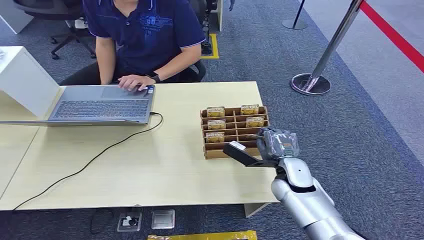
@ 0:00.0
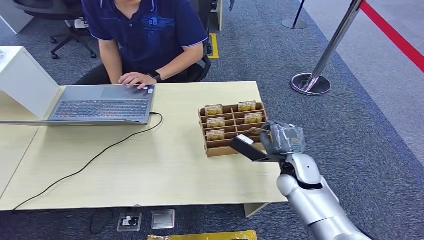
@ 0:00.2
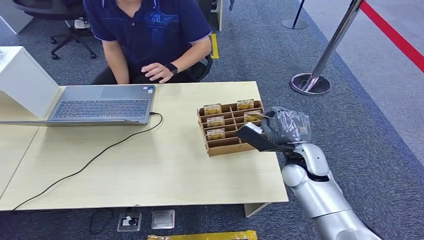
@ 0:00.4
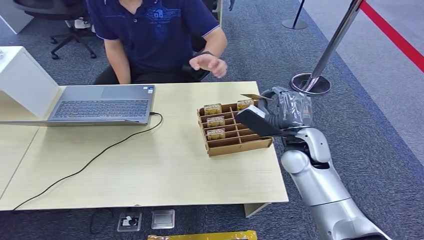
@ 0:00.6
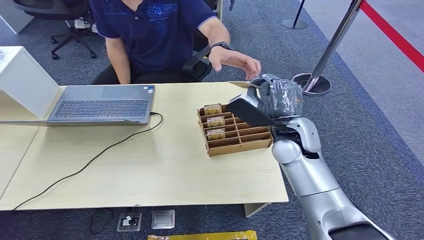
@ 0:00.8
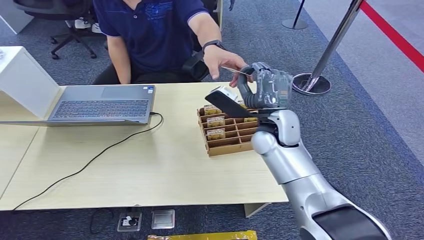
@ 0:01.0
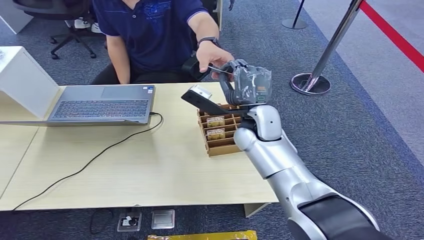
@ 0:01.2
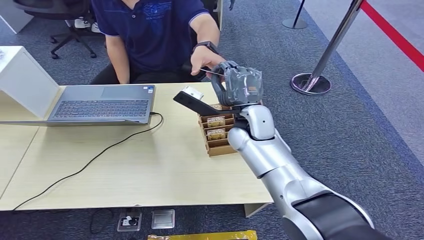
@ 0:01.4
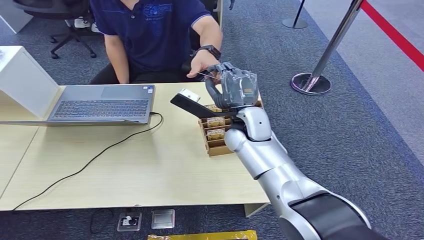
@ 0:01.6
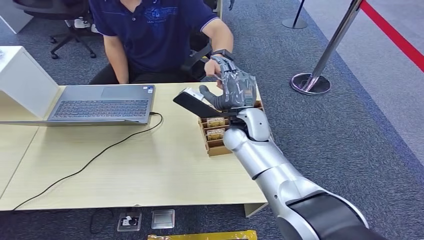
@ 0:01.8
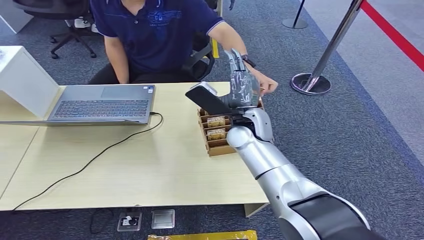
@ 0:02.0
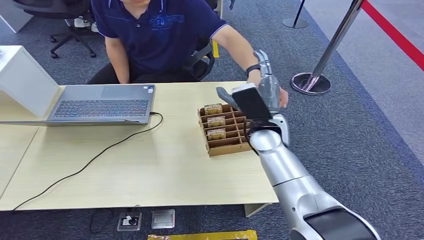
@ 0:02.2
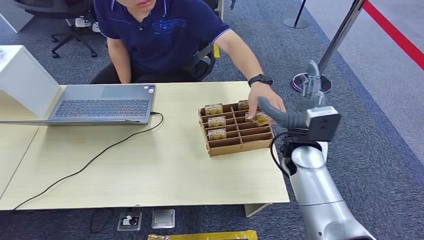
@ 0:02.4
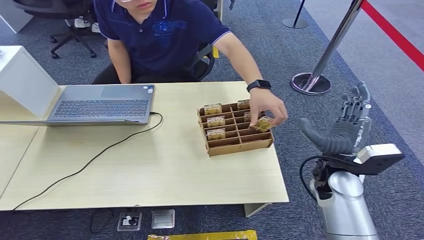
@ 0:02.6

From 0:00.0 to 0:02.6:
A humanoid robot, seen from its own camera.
Step, from 0:00.0 to 0:00.6: Pick up the room card from the card holder.
Step, from 0:01.0 to 0:02.6: Hand the room card to the target.
From 0:01.2 to 0:02.6: The right hand shifts approximately 20 cm to the right, backward and downward.
